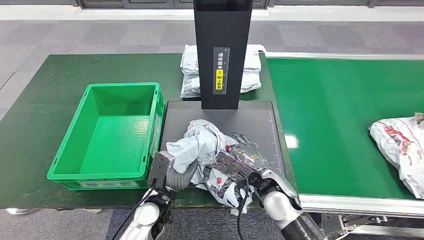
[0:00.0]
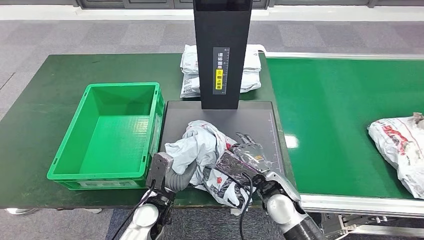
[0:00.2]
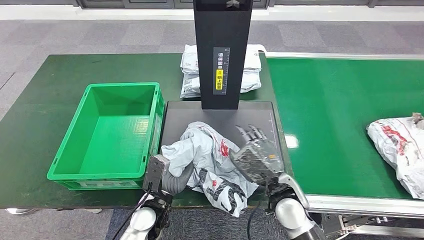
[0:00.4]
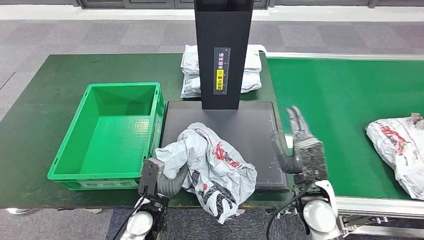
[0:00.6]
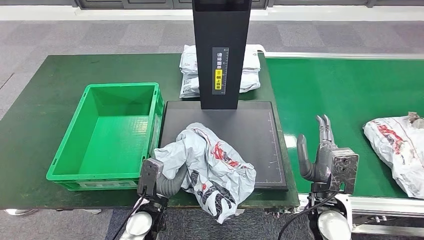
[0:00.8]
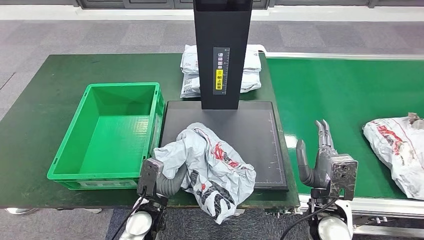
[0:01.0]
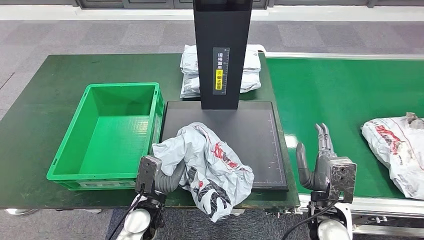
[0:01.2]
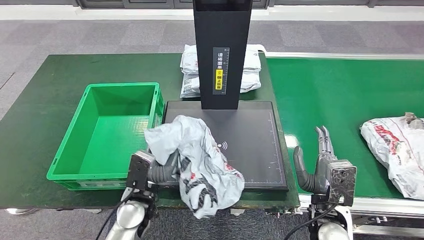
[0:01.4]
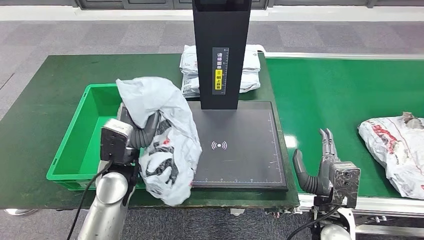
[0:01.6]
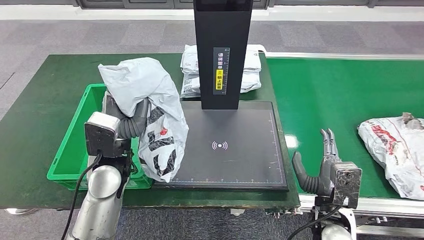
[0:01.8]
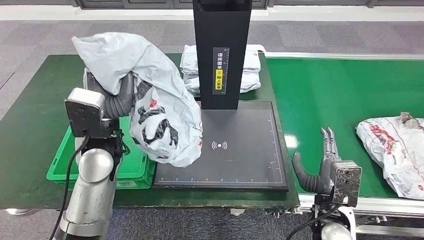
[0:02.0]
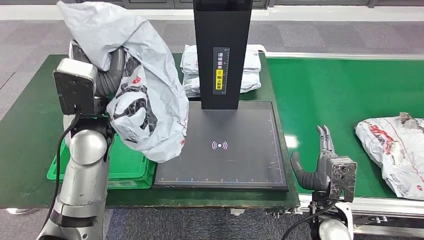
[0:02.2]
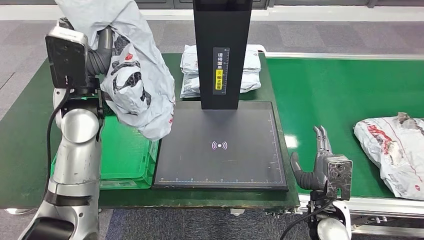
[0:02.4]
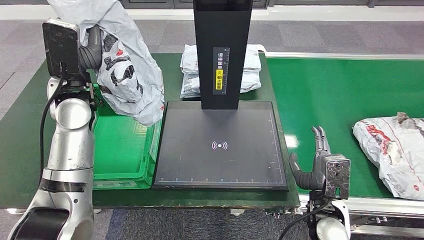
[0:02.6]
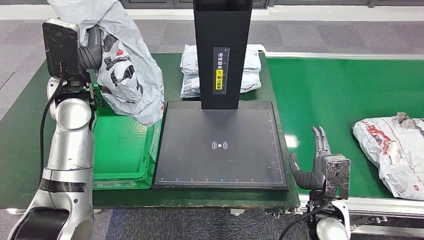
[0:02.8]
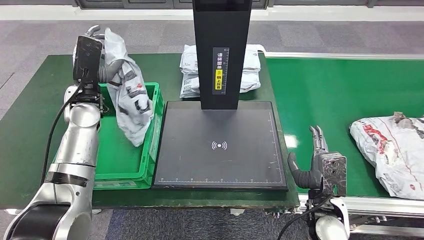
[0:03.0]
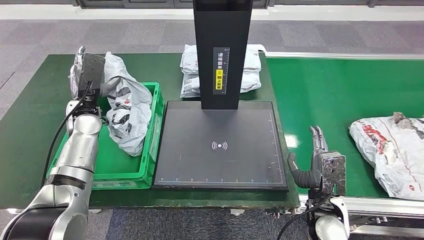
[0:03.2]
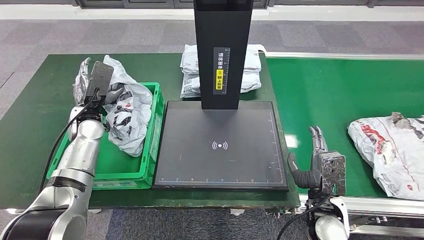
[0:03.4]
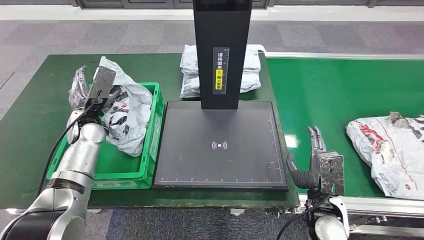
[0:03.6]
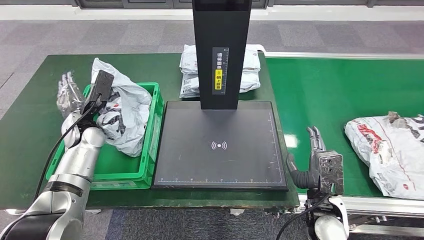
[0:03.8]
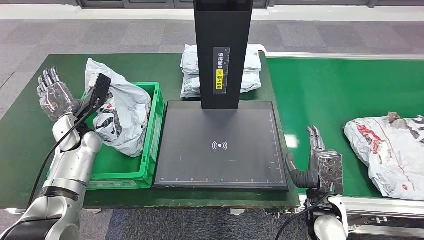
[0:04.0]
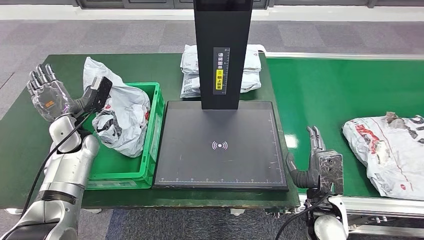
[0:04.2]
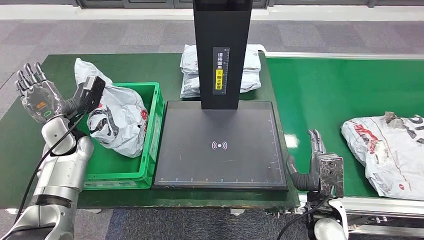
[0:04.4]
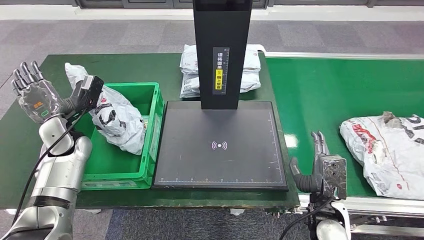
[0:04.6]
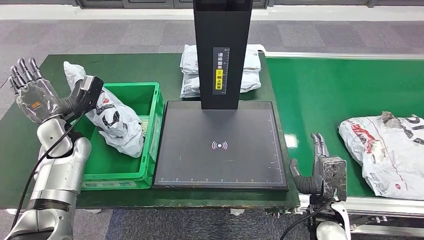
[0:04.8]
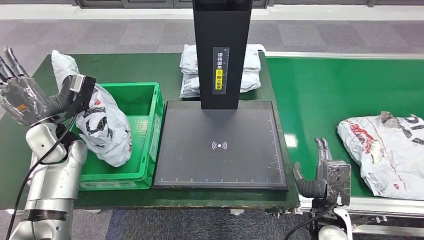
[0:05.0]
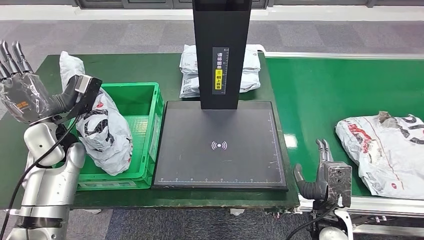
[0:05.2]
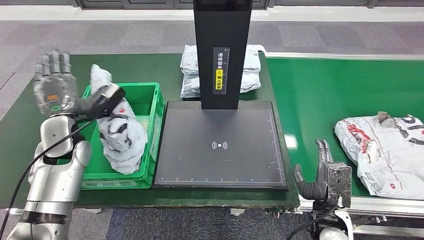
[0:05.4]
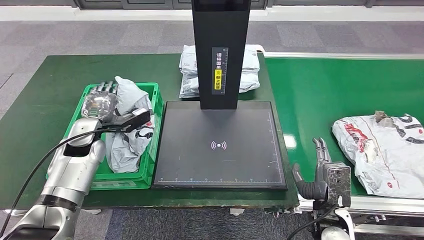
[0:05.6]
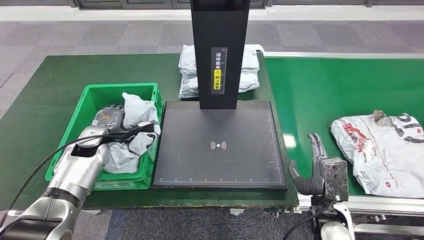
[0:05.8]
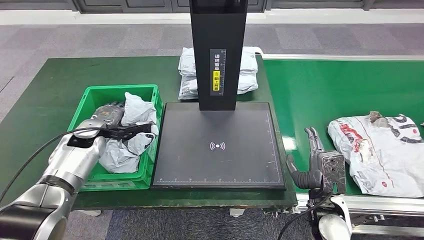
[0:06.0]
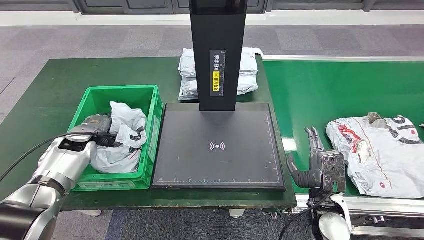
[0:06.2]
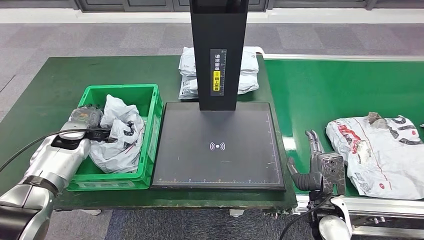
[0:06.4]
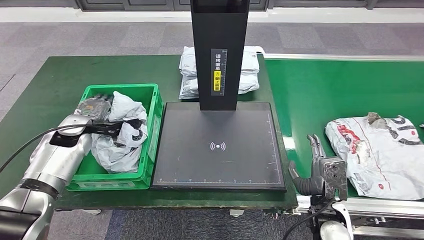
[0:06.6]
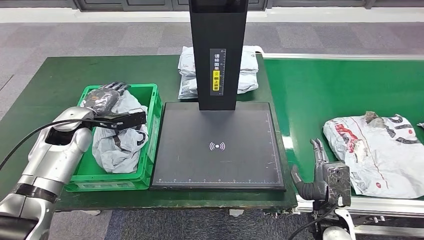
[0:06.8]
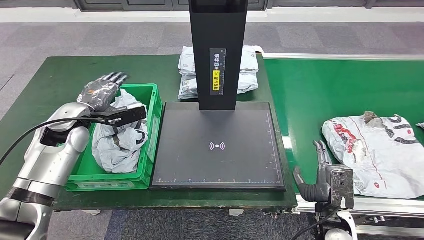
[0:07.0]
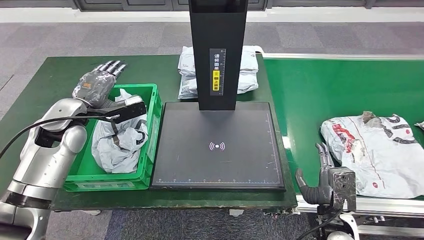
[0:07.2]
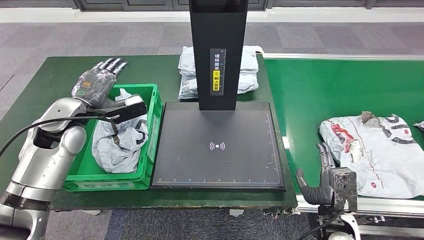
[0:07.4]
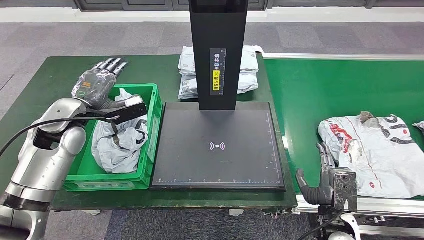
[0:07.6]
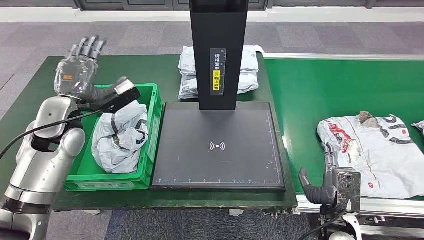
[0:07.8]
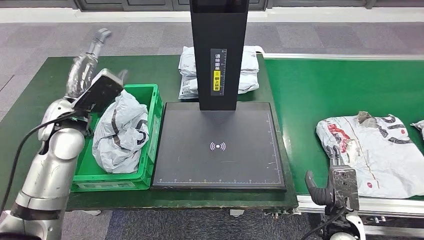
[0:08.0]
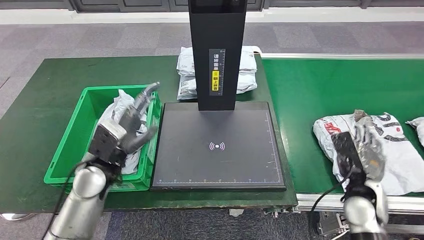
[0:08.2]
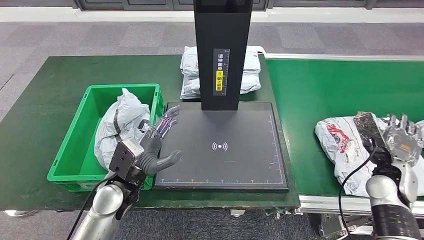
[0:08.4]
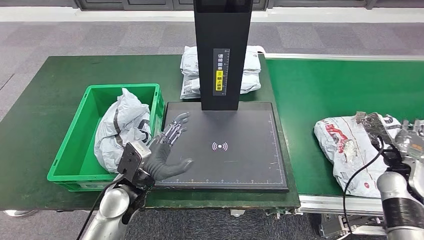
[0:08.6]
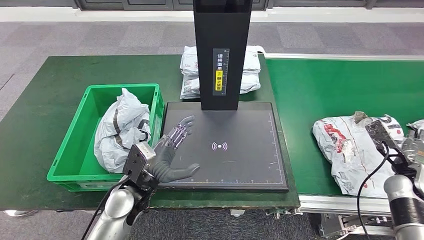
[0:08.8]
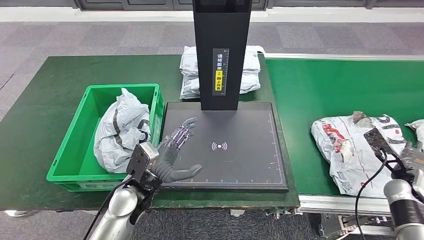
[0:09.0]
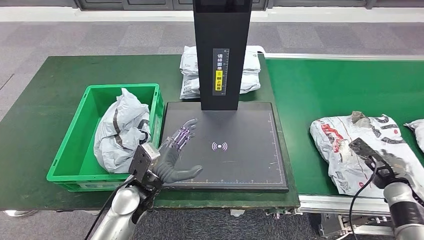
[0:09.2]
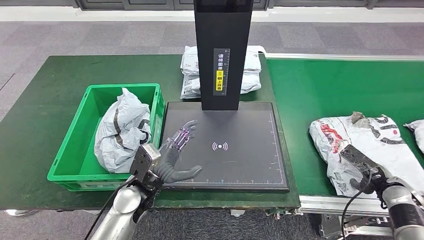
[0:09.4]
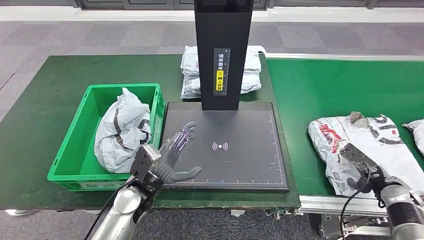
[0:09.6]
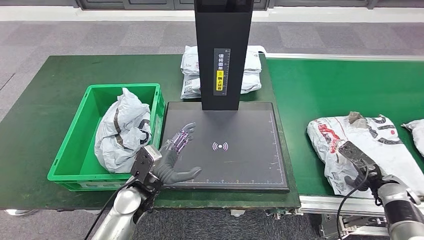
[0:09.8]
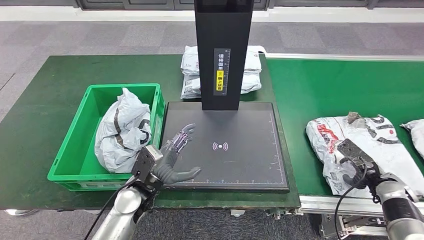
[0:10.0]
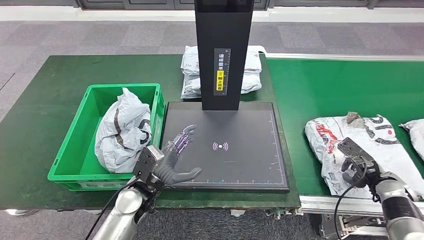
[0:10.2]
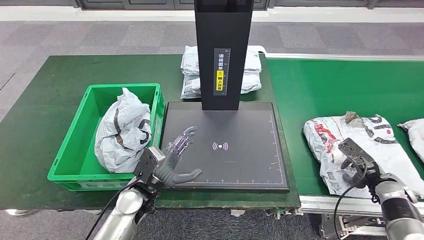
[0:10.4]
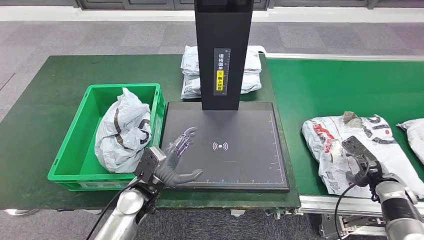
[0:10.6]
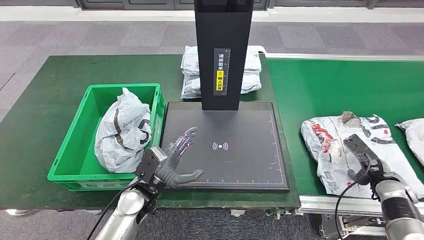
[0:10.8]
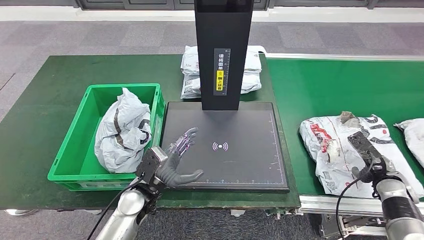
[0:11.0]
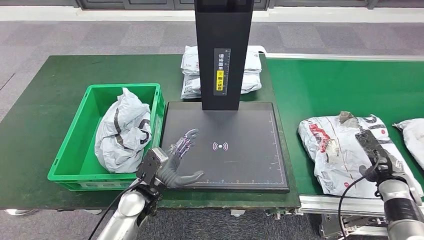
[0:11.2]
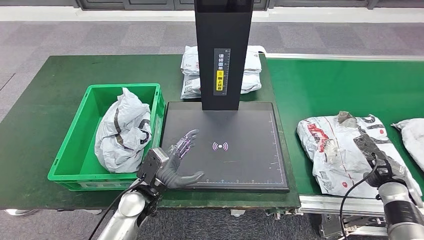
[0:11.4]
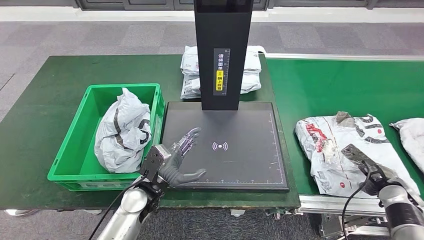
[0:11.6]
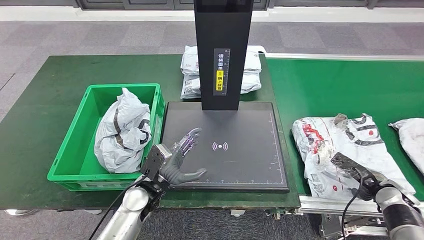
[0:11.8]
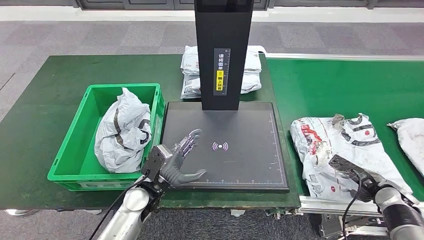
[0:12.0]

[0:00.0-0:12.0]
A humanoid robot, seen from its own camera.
Step, 0:01.4 to 0:02.8: Pick up the parcel from the inbound machine.
Step, 0:03.0 to 0:07.6: Put the parcel inside the courier box.
0:03.0 to 0:04.4: The left hand heads downward and to the left, covering roughly 15 cm.

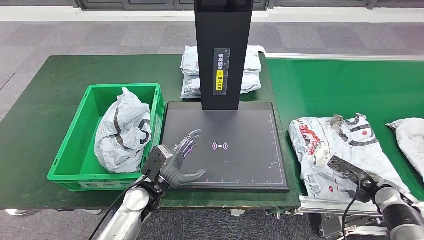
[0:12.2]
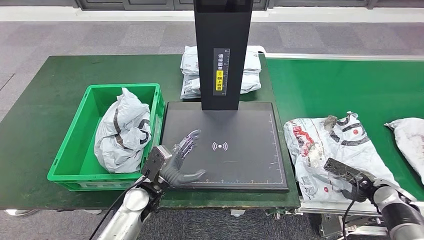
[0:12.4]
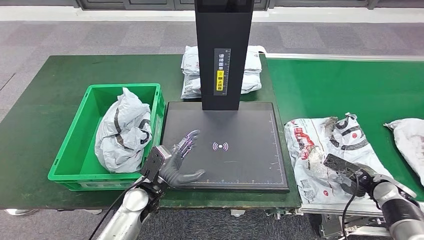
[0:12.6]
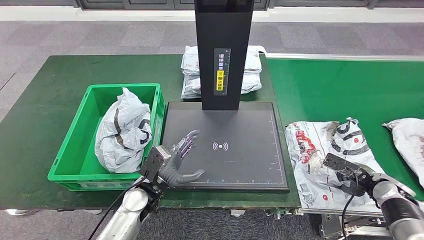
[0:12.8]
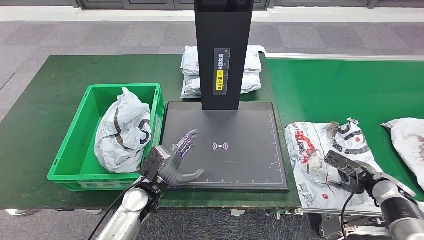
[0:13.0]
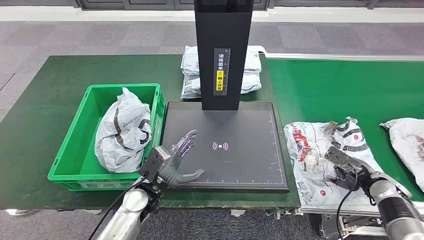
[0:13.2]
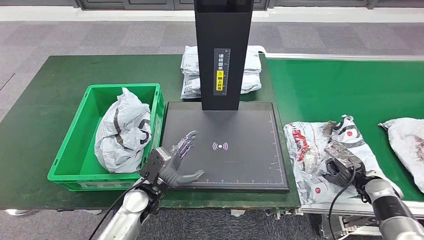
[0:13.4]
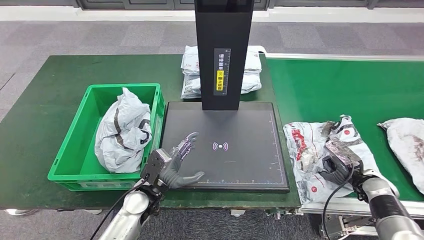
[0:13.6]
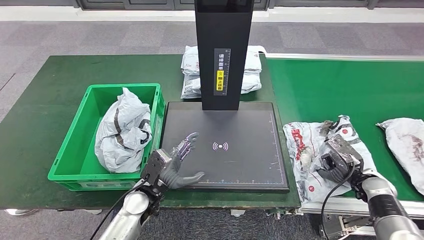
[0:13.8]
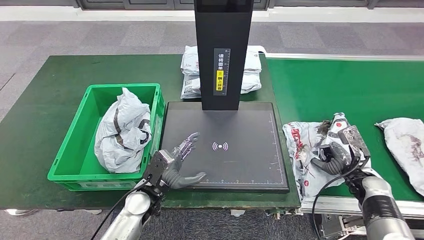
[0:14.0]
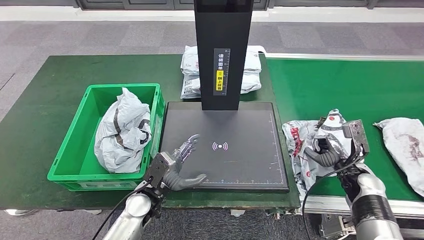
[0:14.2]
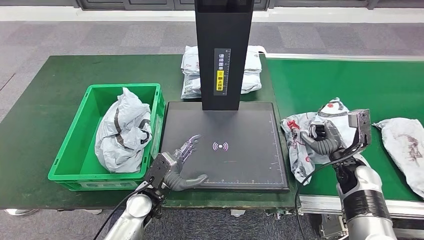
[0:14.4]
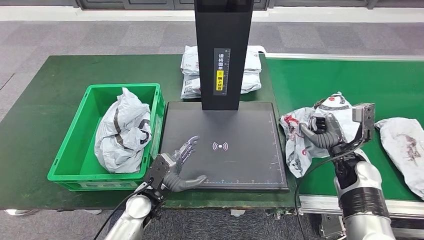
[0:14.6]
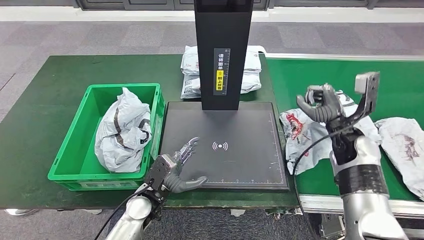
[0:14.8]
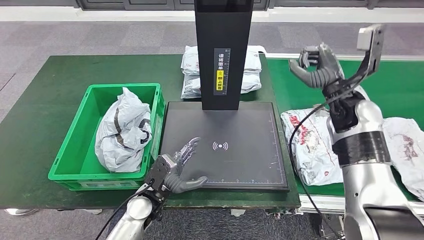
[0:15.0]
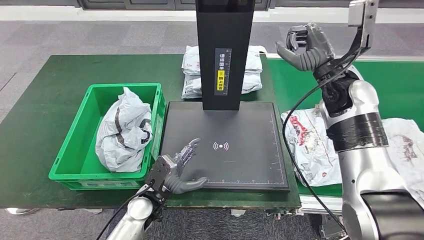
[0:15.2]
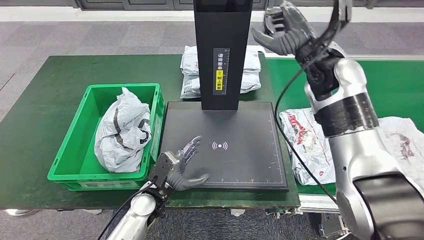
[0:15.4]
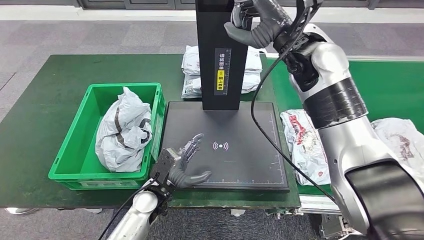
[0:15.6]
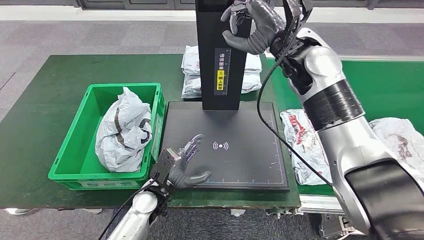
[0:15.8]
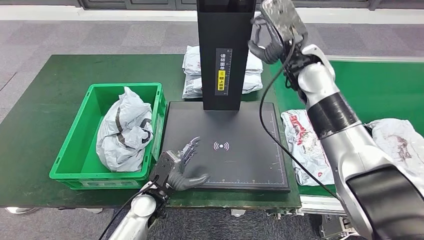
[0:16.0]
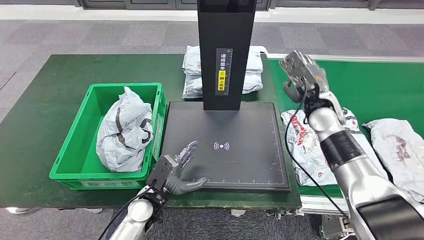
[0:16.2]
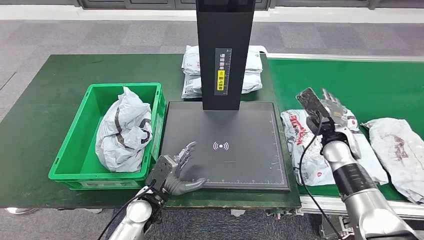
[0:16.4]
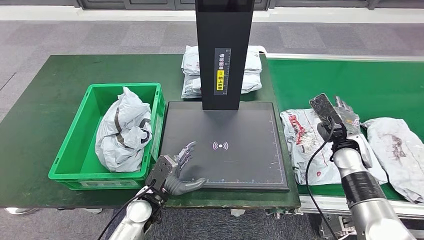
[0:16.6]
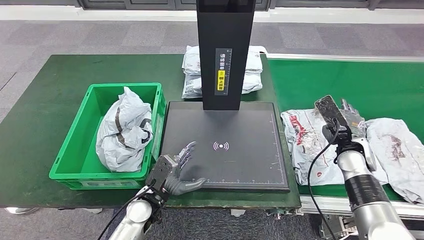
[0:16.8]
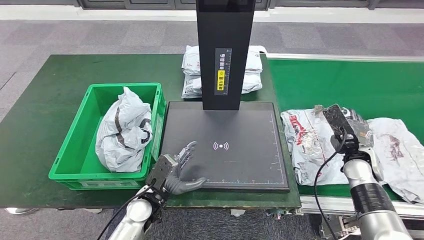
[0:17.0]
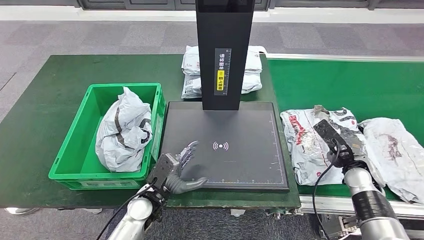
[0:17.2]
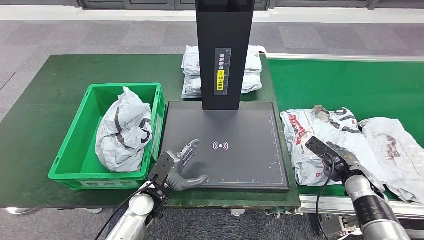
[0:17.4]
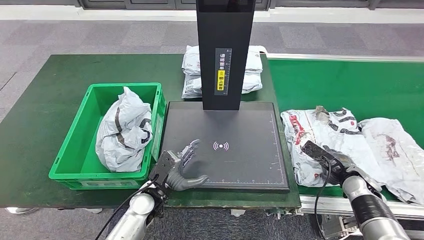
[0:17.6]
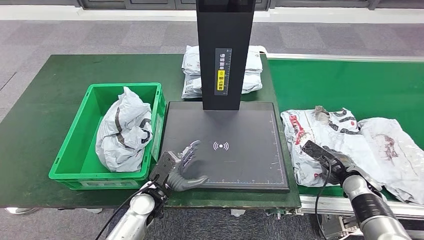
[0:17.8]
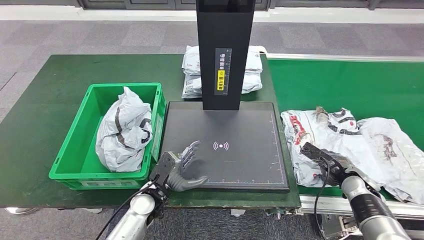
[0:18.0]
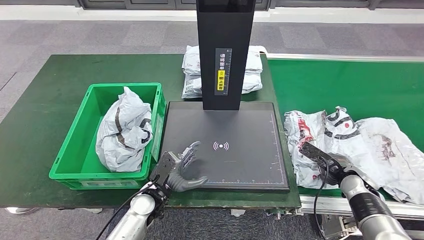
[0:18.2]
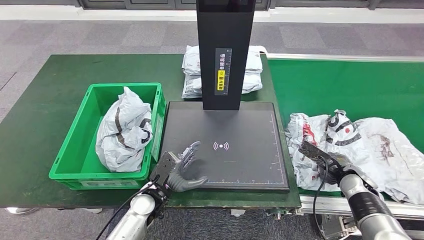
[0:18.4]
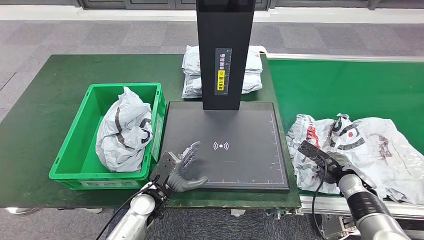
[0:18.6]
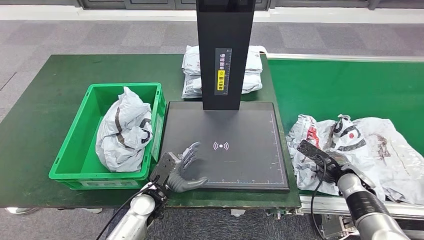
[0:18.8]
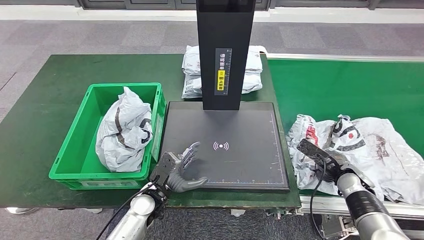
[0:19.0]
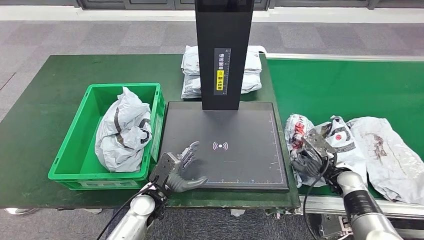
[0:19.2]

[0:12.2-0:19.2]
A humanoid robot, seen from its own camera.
0:13.6 to 0:15.0: The right hand shifts some 30 cm upward, to the left and forward.
0:15.0 to 0:16.4: The right hand shifts about 10 cm downward.
0:16.4 to 0:17.8: The right hand shifts roughly 15 cm downward, to the right and backward.
